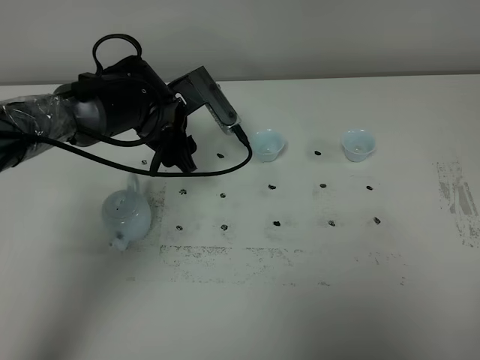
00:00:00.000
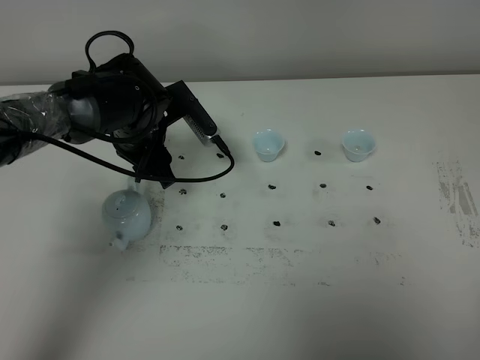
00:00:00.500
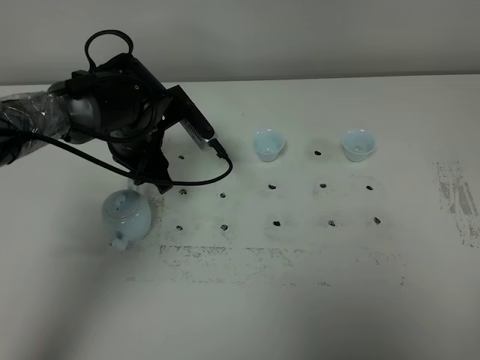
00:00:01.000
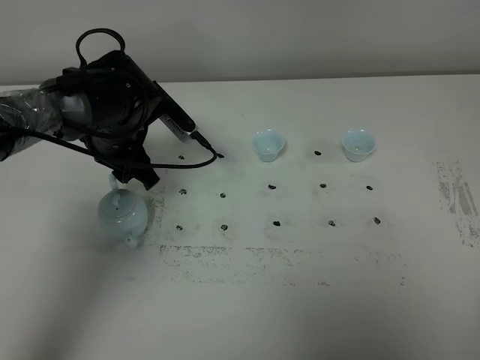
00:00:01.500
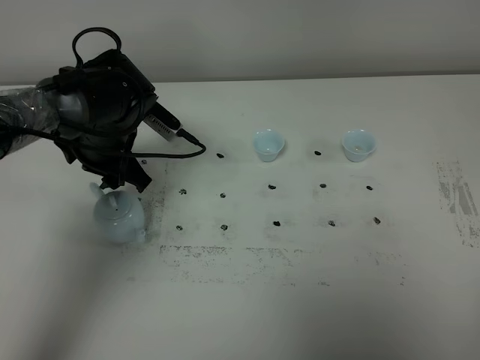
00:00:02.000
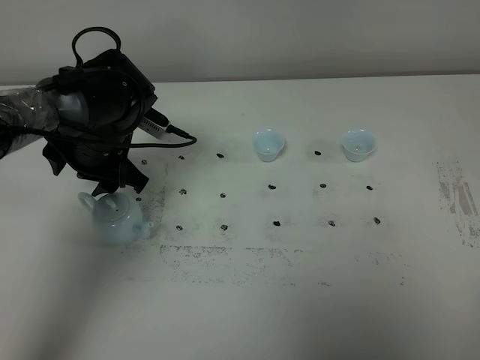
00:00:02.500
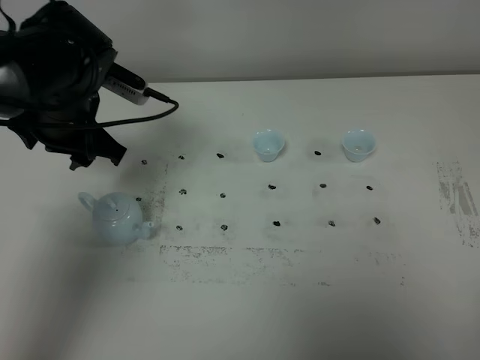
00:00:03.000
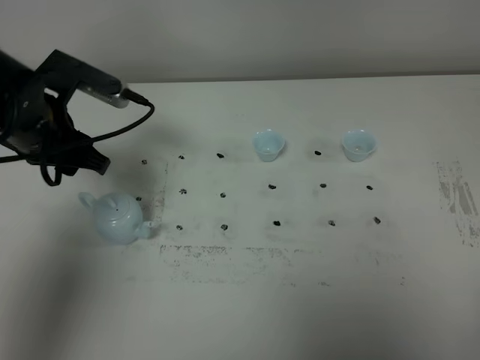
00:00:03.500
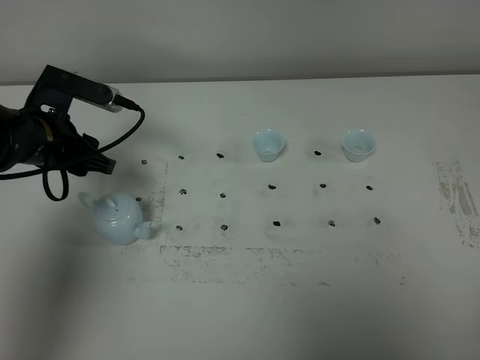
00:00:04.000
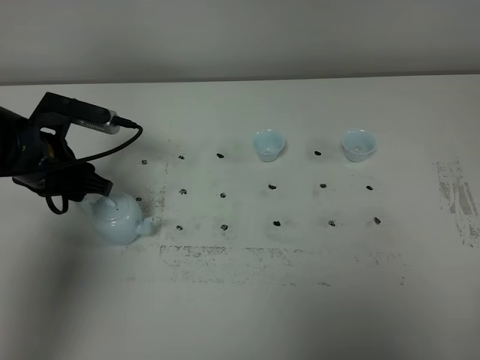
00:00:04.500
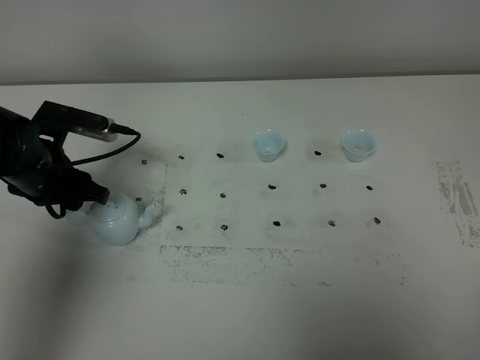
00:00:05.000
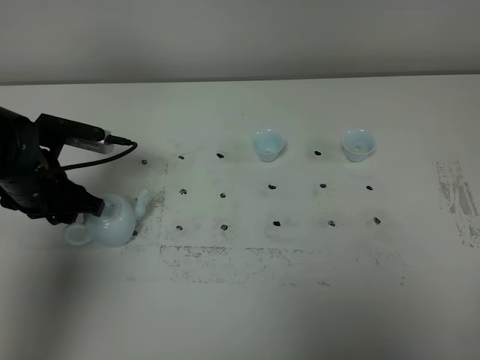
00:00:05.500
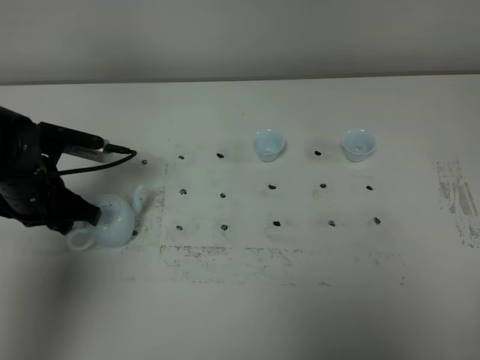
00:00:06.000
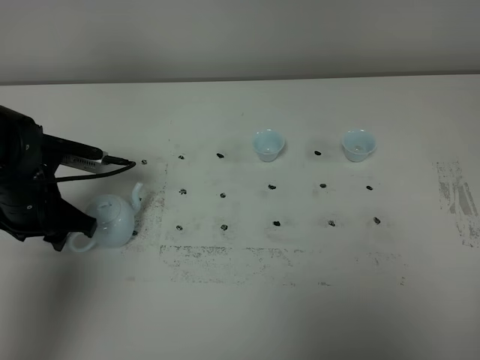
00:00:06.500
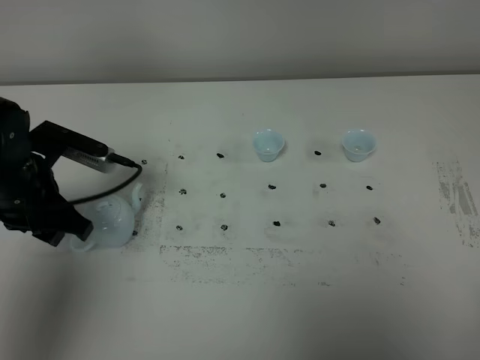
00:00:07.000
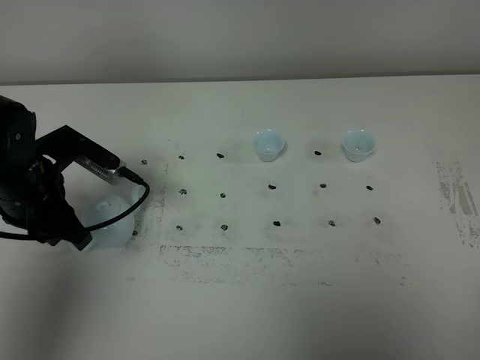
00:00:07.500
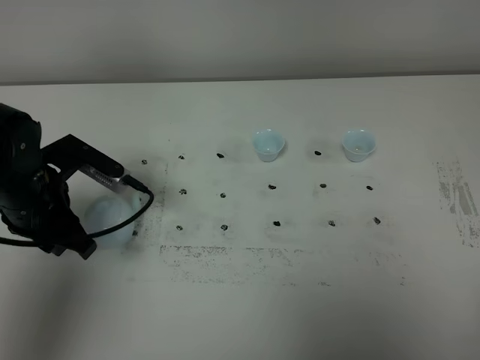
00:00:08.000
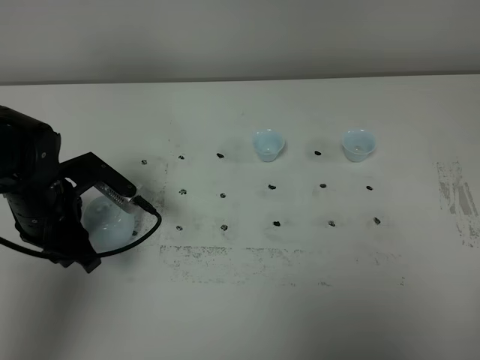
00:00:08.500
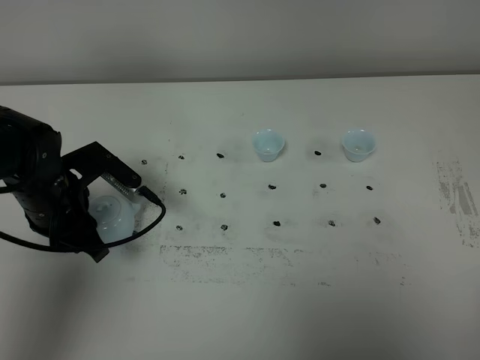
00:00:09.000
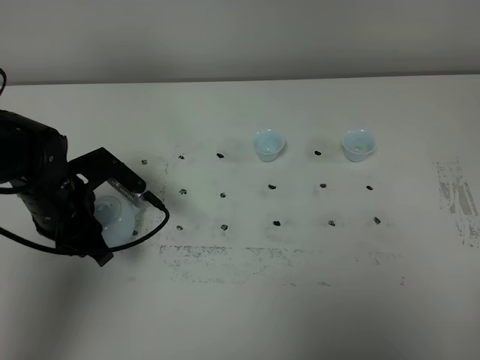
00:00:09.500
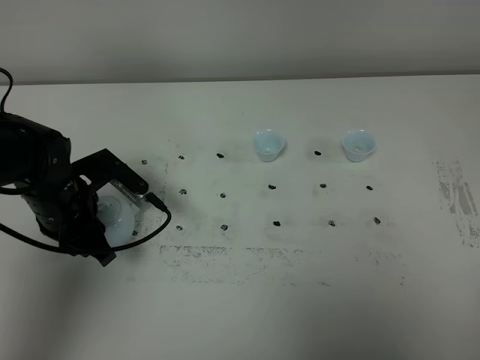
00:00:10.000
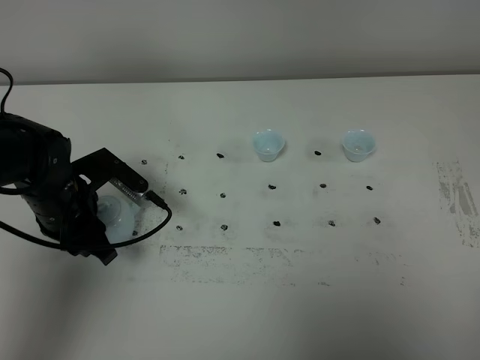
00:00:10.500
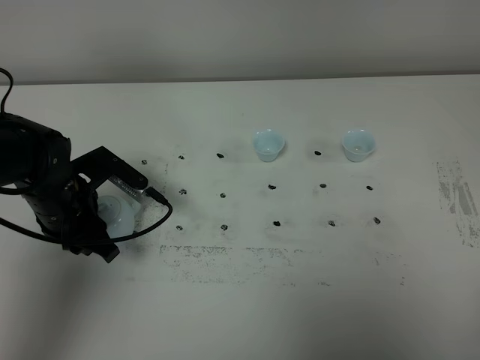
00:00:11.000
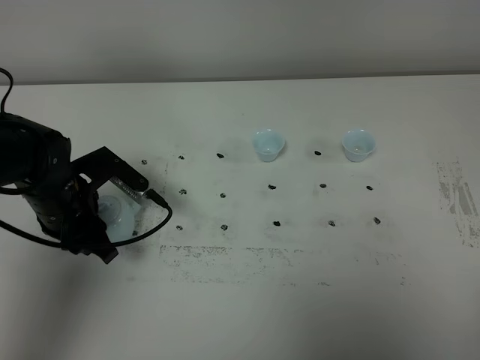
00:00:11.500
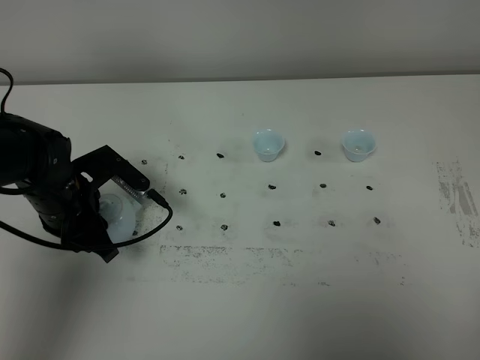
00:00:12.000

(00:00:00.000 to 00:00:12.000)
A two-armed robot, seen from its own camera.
Task of the whole recording: grasp the blue porcelain teapot and pour the tea into the two blue porcelain teacups one by one, put the blue porcelain teapot back in its original place.
00:00:00.000 - 00:00:02.000: The left gripper is displaced to the left by about 5 cm.
00:00:02.000 - 00:00:04.000: The left gripper shifts about 10 cm to the left, and goes upward and returns, approximately 10 cm each way.
00:00:06.000 - 00:00:08.000: The left gripper ends up approximately 5 cm from where it was.
00:00:08.000 - 00:00:10.000: The grippers move only a little.
00:00:10.000 - 00:00:12.000: The two grippers keep their place.

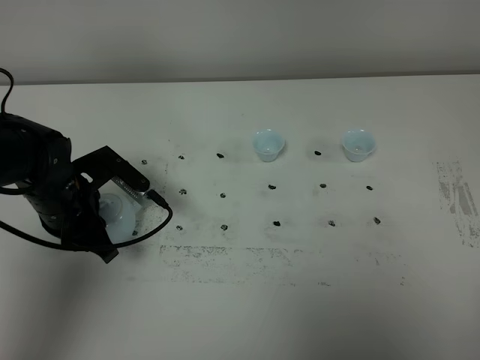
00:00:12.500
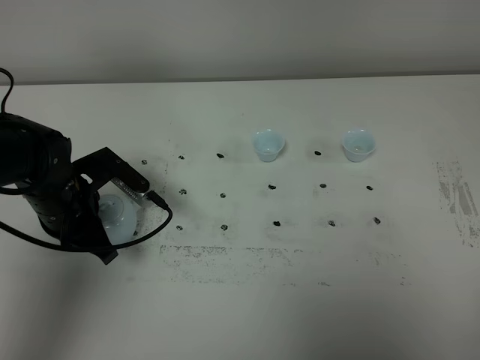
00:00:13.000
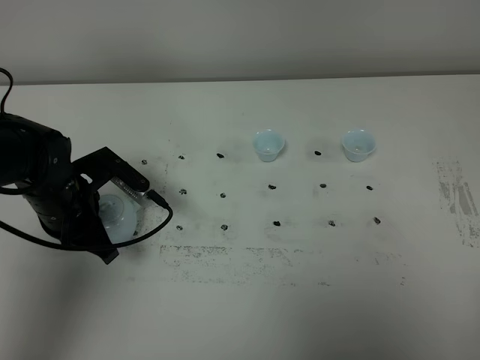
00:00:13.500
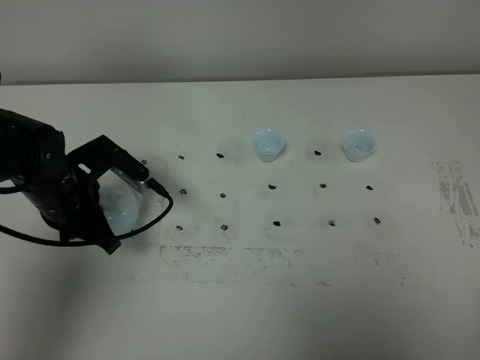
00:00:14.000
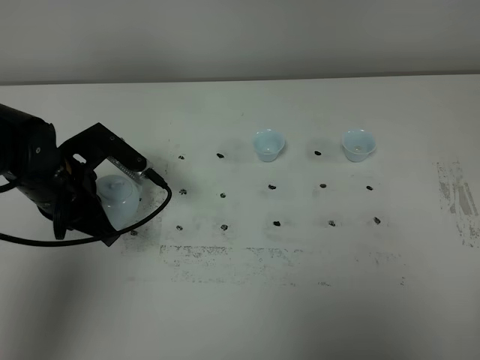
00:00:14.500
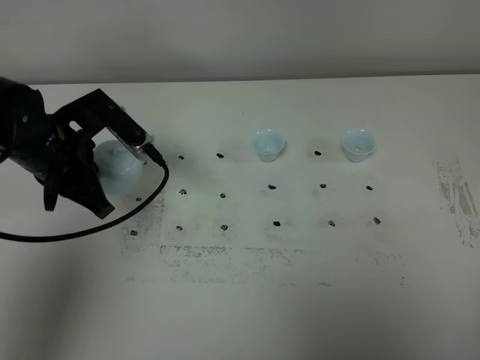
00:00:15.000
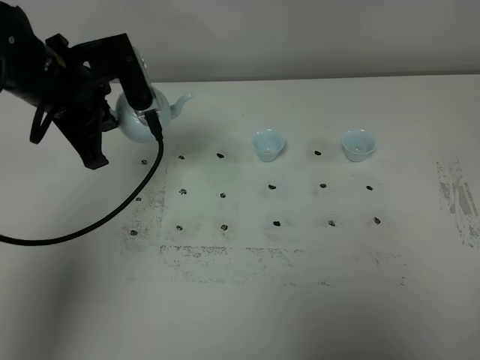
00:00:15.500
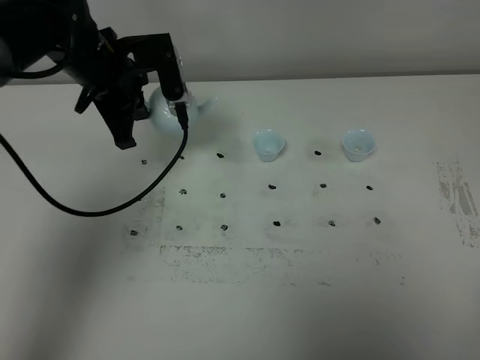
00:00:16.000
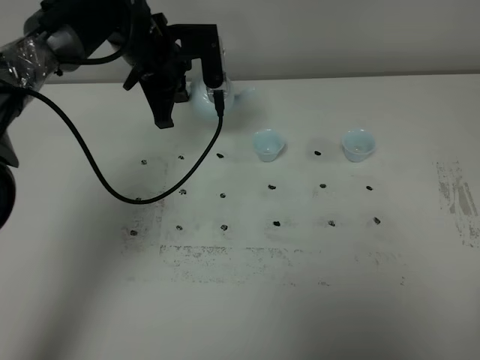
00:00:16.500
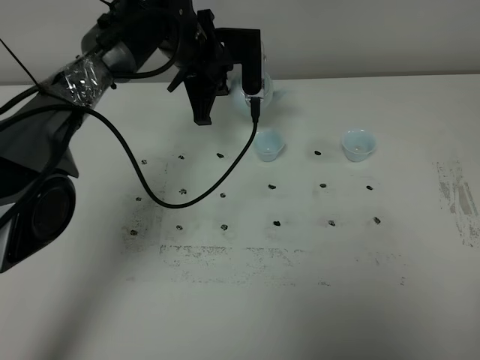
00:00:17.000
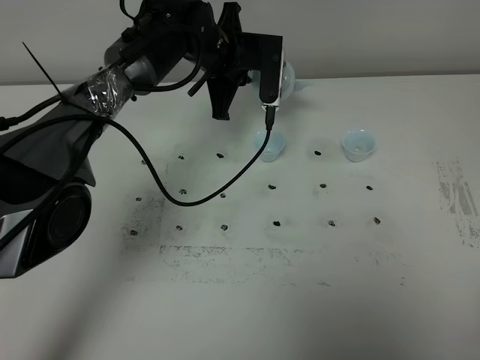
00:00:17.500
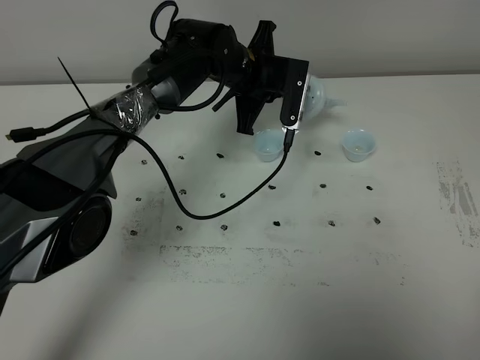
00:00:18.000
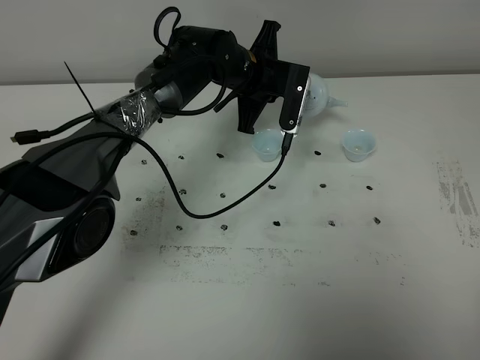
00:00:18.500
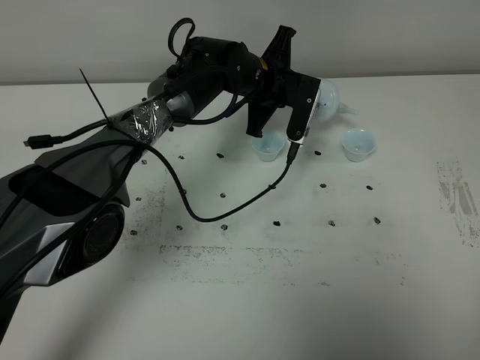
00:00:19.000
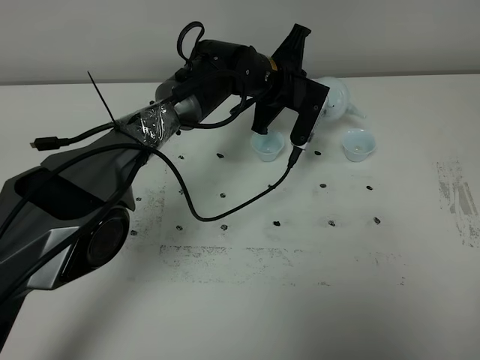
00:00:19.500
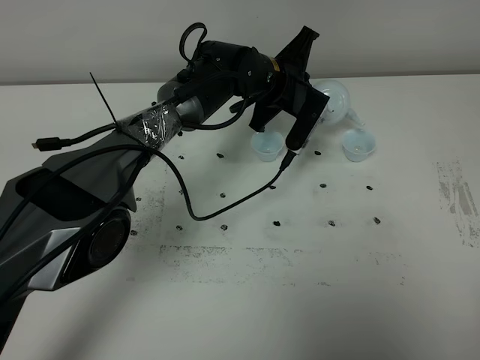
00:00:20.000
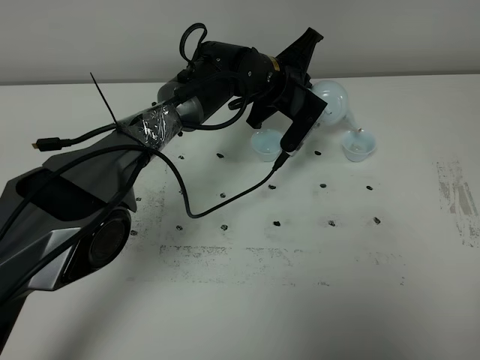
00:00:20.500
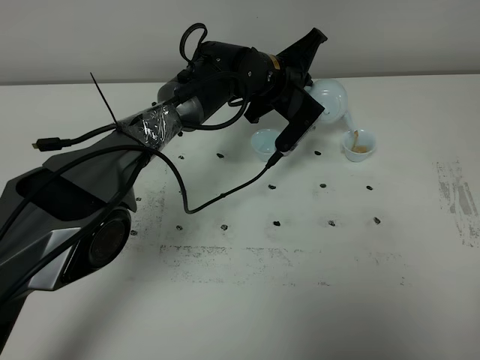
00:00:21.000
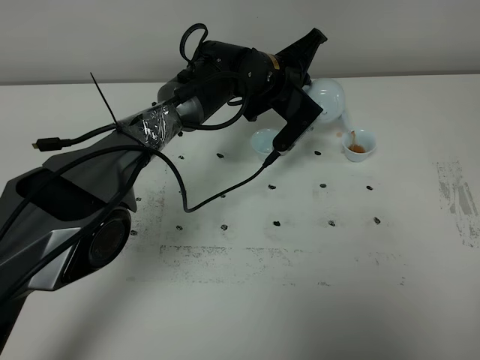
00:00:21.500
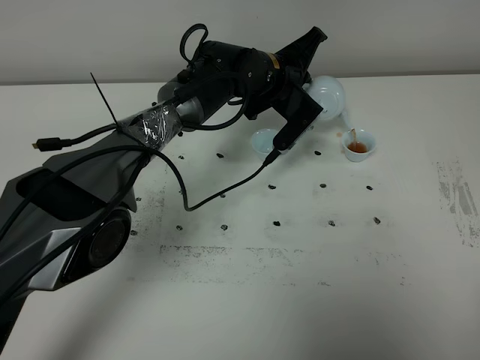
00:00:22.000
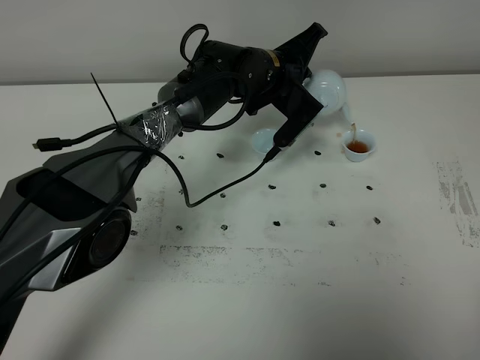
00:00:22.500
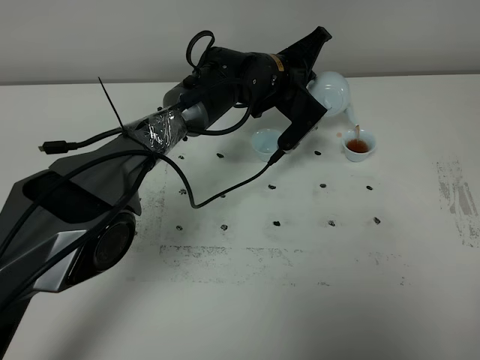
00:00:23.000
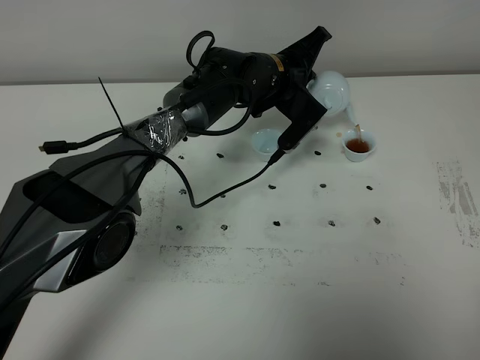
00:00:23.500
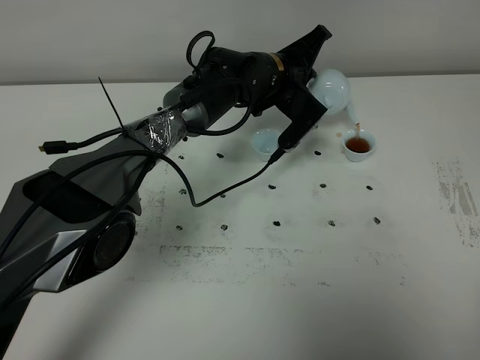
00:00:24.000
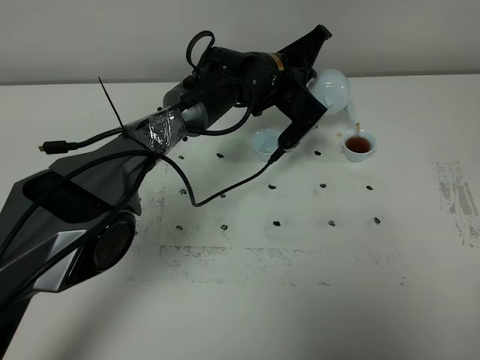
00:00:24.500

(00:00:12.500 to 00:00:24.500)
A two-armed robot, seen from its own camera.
Task of the whole recording: grasp the blue porcelain teapot and pour the tea into the two blue porcelain teacups one by one, put the blue porcelain teapot back in its original place.
Step, 00:00:12.500 - 00:00:14.500: Pick up the teapot with the left gripper.
00:00:12.500 - 00:00:14.500: The grippers stay close to where they were, moving slightly.
00:00:14.500 - 00:00:16.500: The left gripper moves forward and to the right, some 20 cm.
00:00:16.500 - 00:00:18.500: The left gripper shifts about 10 cm to the right and downward.
00:00:20.500 - 00:00:22.500: The grippers move only a little.
00:00:22.500 - 00:00:24.500: Both grippers stay put.

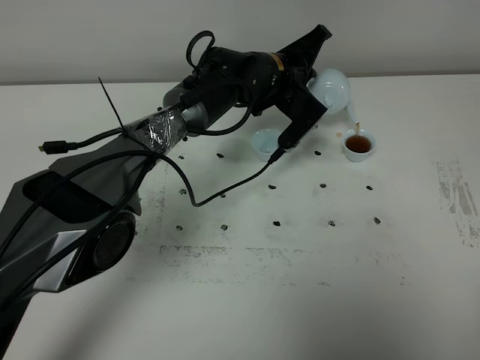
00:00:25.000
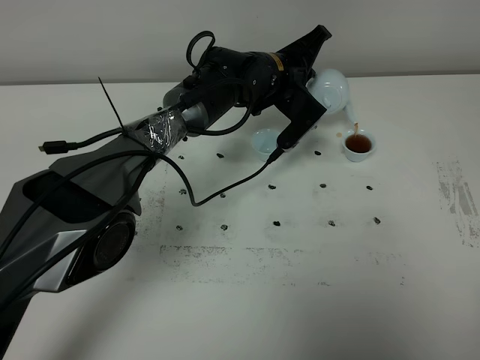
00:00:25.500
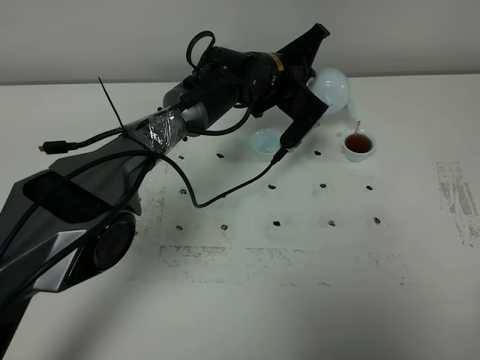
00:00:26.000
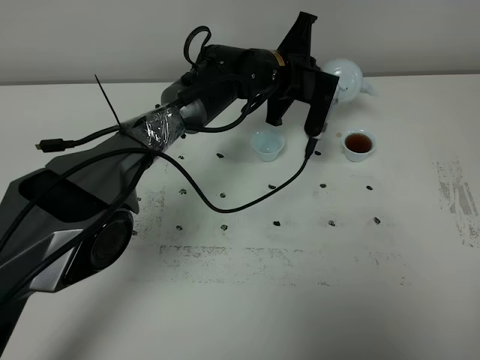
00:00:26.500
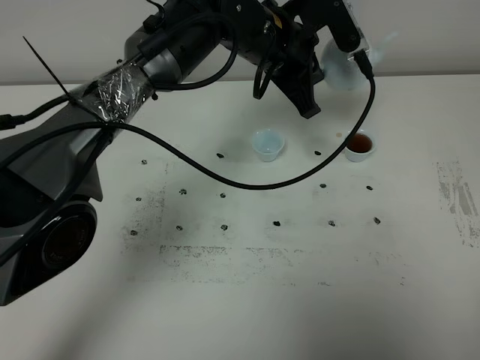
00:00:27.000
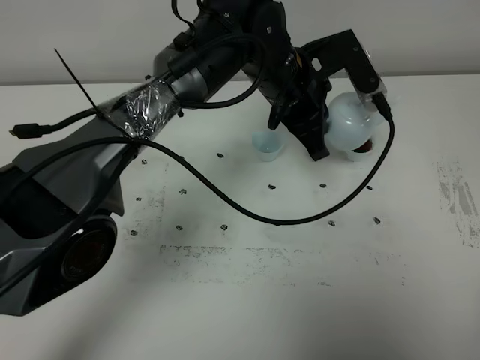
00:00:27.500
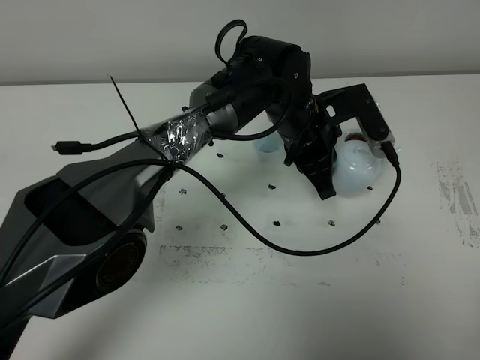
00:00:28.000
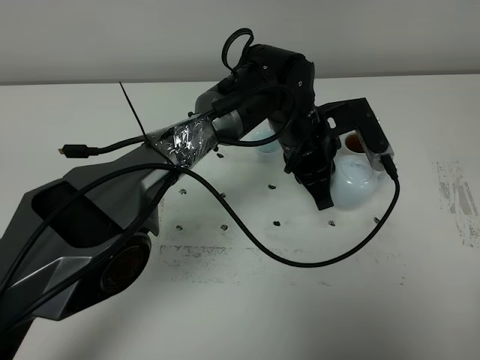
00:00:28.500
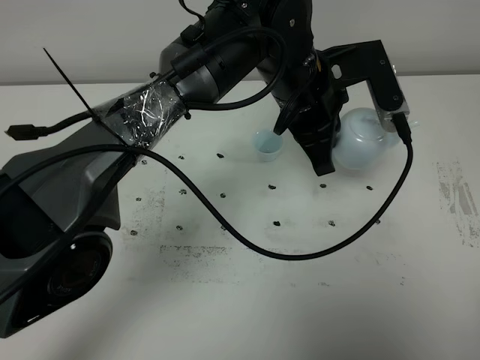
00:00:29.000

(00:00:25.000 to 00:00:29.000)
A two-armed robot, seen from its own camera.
Task of the whole recording: grasp the blue porcelain teapot and pour the tea into the two blue porcelain teacups one by one, put the blue porcelain teapot back in its original place.
00:00:25.000 - 00:00:27.000: The left gripper goes approximately 10 cm upward and backward.
00:00:27.000 - 00:00:29.000: The left gripper shifts approximately 5 cm backward, and moves approximately 10 cm downward and comes back.
